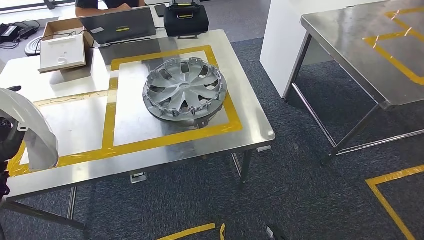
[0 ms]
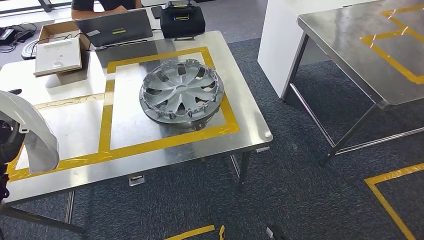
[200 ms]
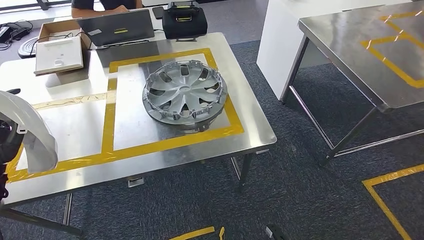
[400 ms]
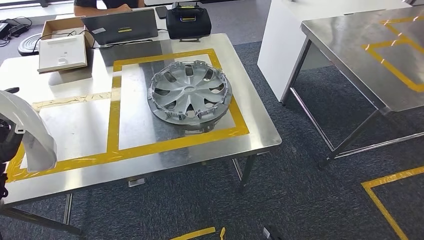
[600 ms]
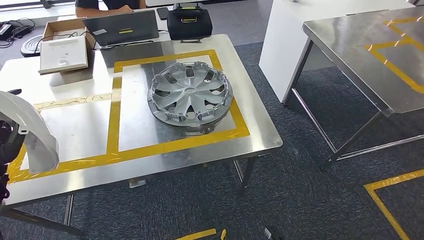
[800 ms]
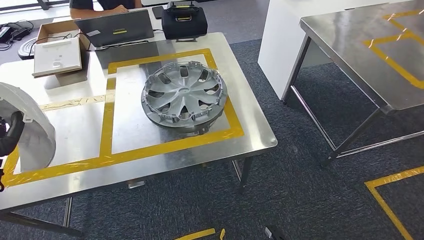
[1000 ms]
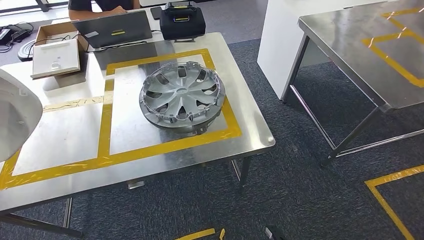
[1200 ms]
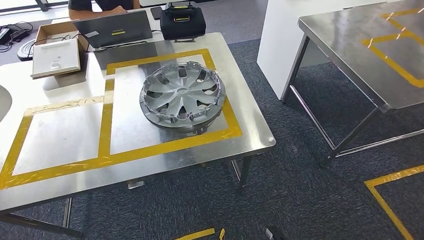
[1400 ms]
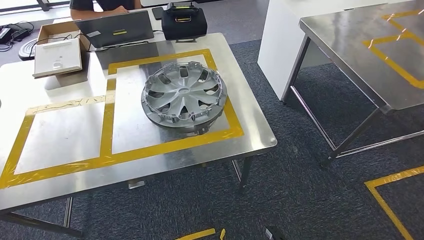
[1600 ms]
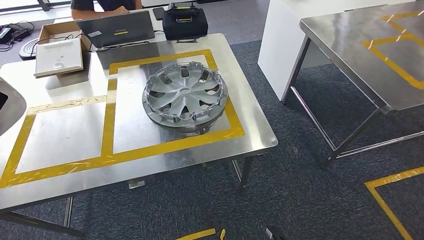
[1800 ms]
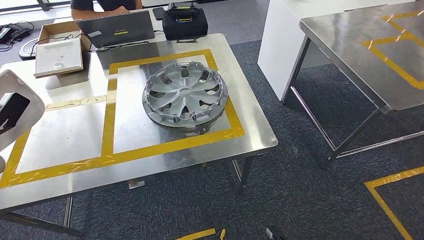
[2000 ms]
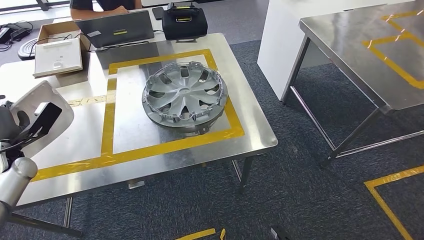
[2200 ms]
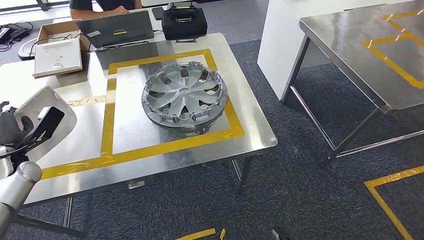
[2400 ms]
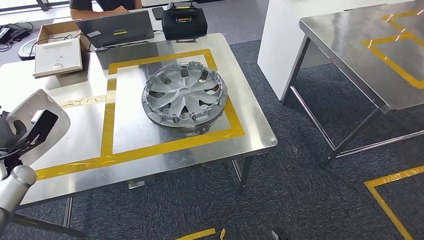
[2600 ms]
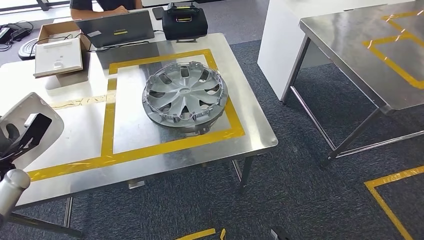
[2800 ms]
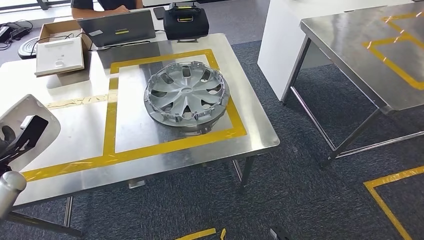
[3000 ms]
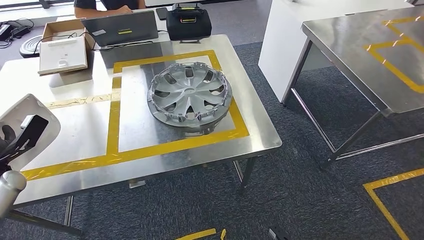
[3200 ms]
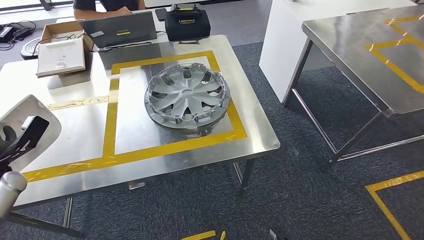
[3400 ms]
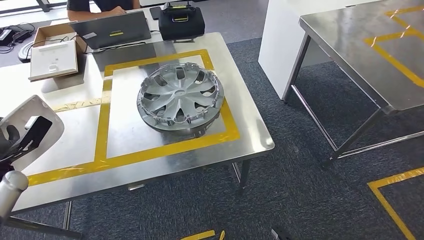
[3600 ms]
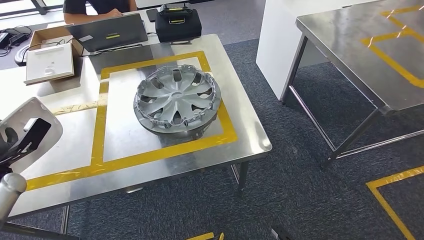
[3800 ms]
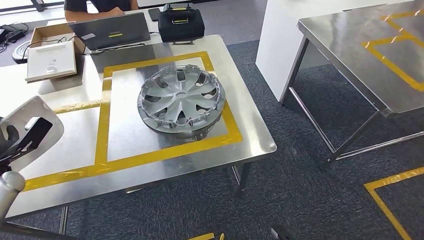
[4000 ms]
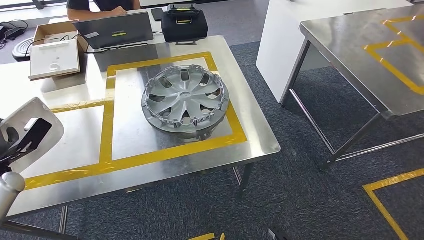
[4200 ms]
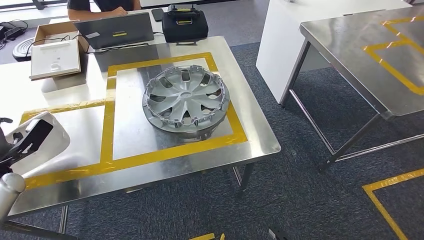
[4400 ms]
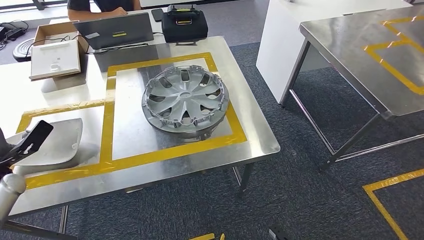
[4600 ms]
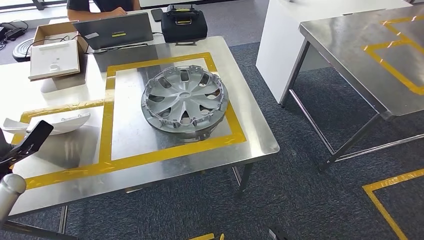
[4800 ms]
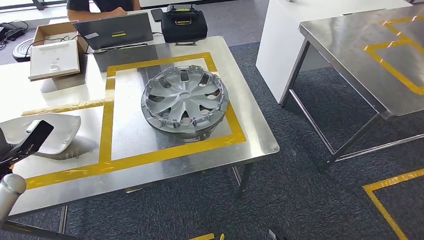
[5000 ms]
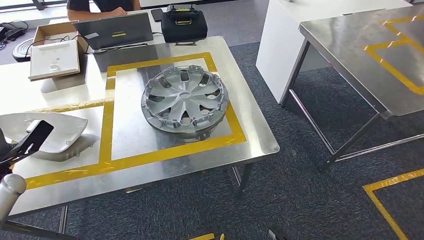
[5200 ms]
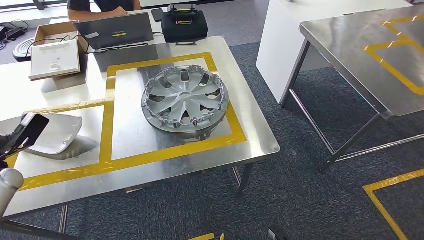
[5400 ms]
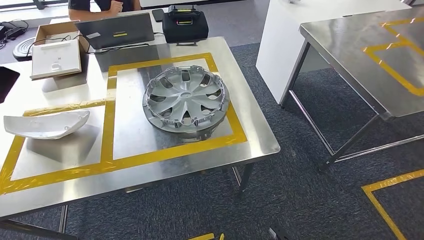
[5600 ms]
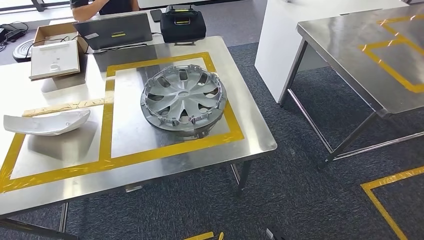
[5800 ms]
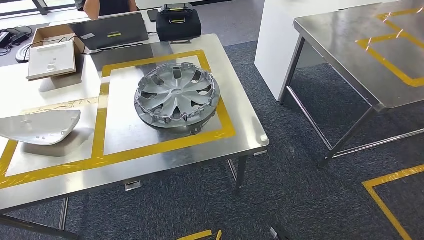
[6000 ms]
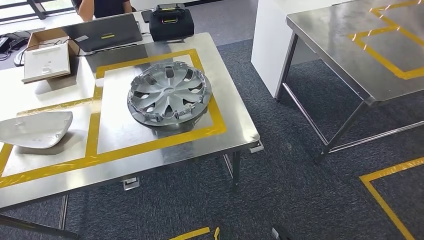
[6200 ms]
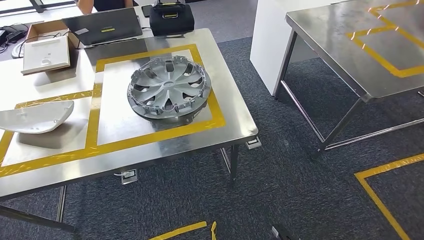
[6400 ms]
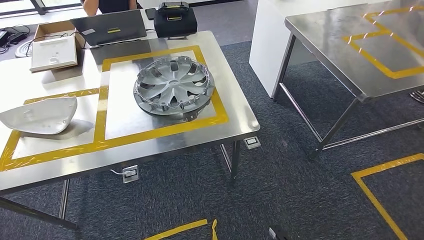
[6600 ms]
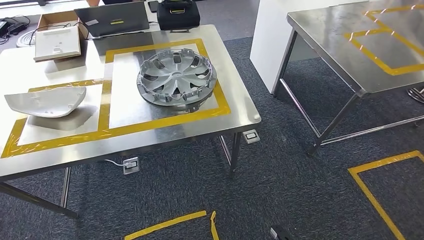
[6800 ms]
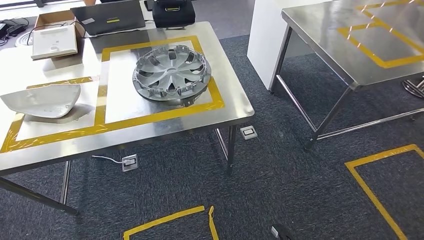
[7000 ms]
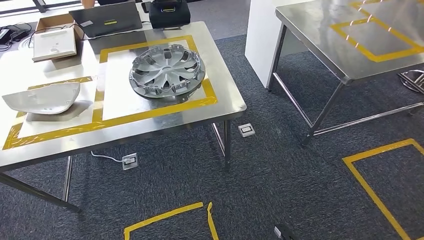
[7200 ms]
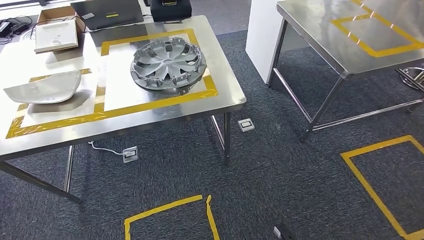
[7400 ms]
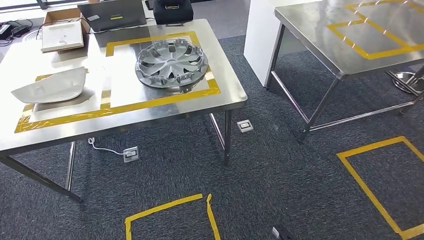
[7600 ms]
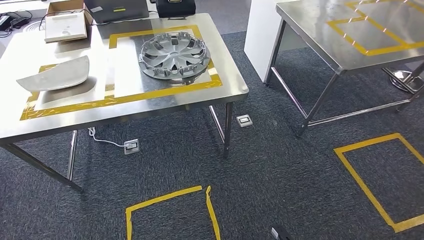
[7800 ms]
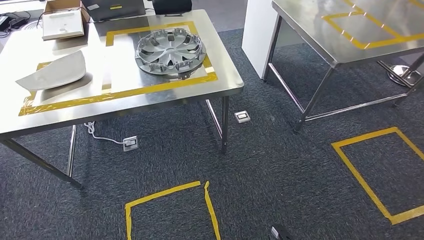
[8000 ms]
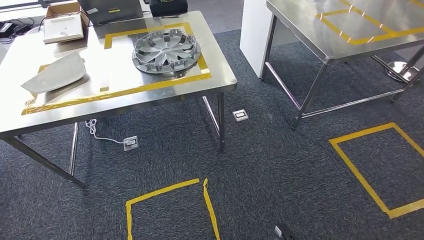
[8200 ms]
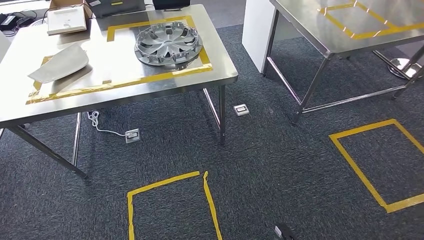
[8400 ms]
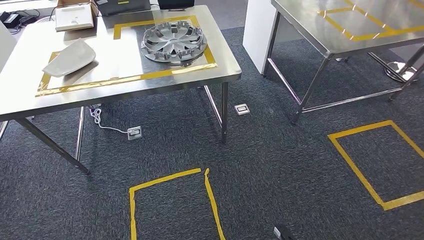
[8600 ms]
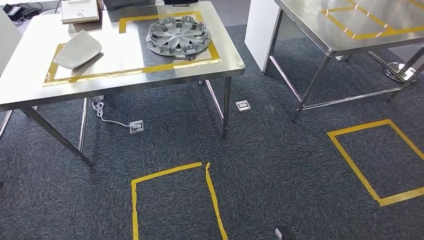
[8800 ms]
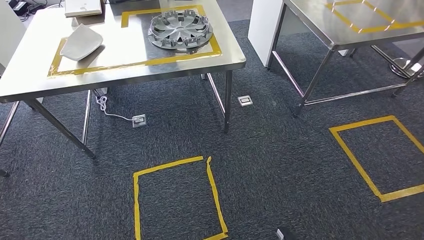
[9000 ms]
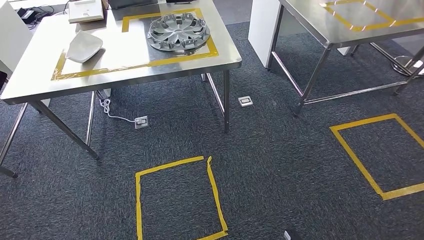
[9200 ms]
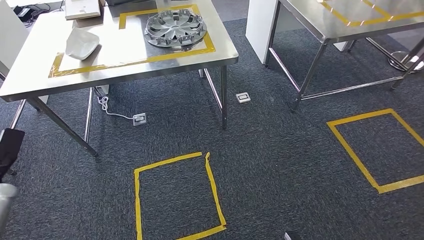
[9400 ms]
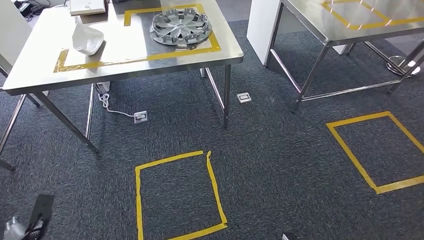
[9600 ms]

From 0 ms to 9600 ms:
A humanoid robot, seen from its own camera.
Step, from 0 ms to 5800 ms: Insert the small parts into the corresponding holes on the workbench.
Step, from 6400 ms to 9600 ms: Move to the initial position of the workbench.
